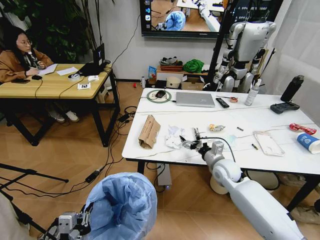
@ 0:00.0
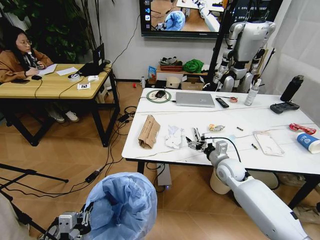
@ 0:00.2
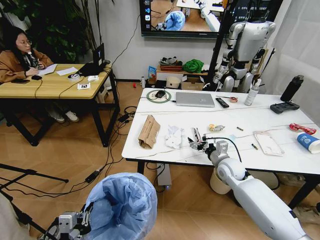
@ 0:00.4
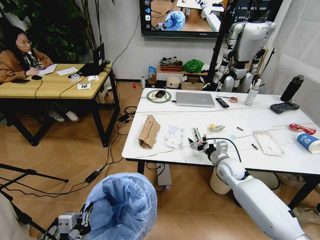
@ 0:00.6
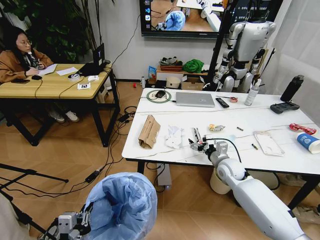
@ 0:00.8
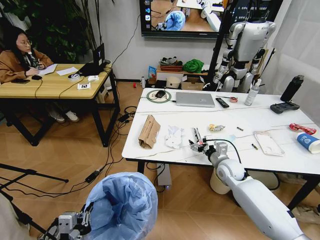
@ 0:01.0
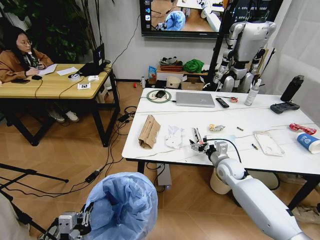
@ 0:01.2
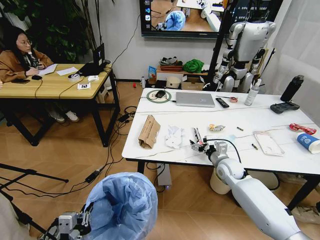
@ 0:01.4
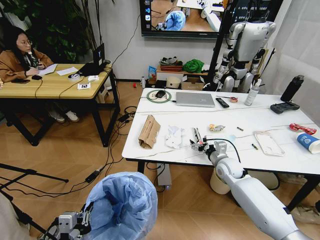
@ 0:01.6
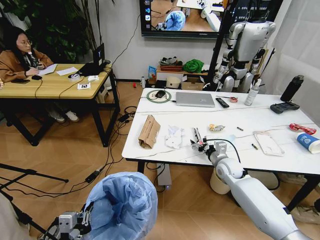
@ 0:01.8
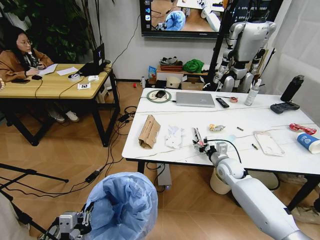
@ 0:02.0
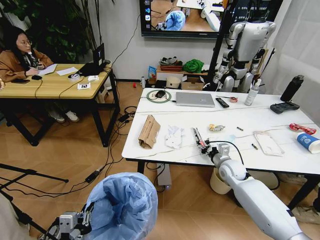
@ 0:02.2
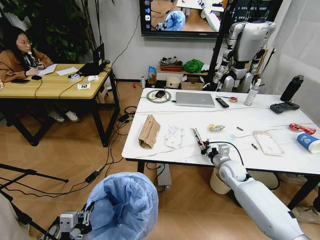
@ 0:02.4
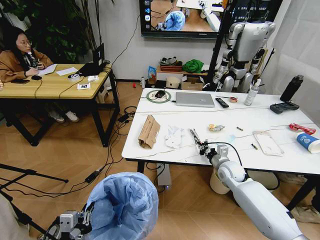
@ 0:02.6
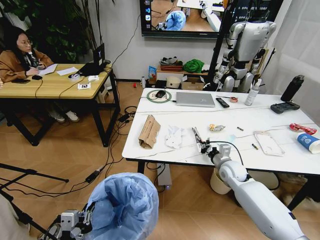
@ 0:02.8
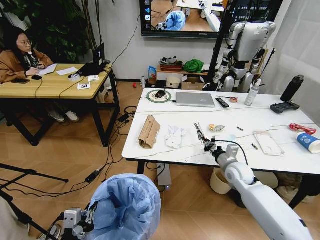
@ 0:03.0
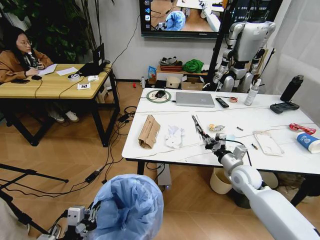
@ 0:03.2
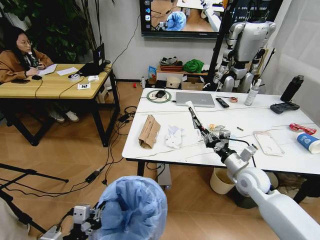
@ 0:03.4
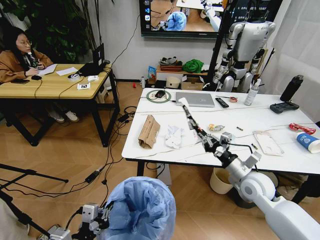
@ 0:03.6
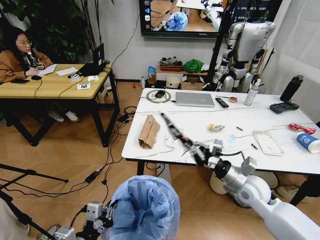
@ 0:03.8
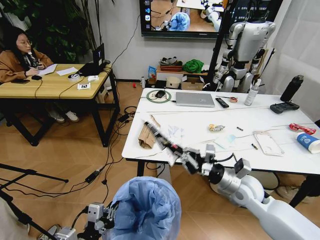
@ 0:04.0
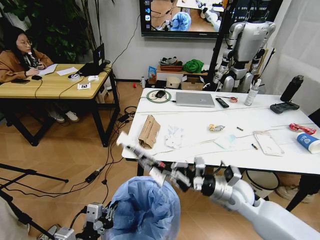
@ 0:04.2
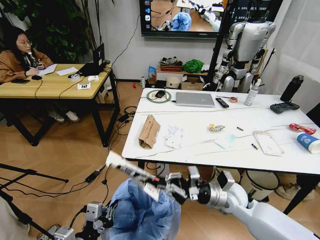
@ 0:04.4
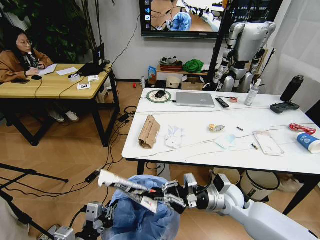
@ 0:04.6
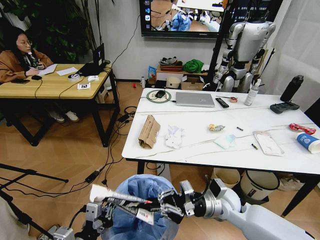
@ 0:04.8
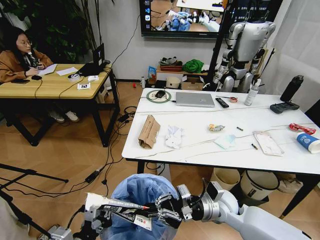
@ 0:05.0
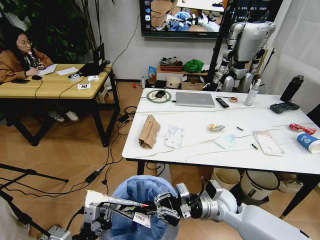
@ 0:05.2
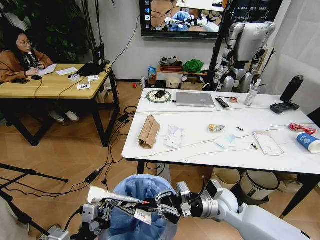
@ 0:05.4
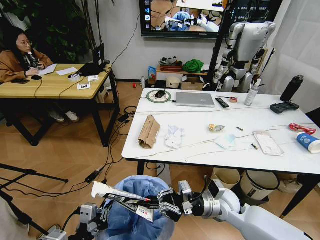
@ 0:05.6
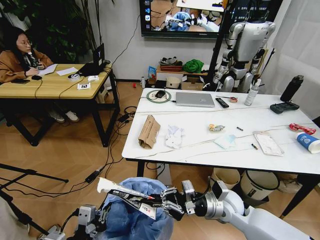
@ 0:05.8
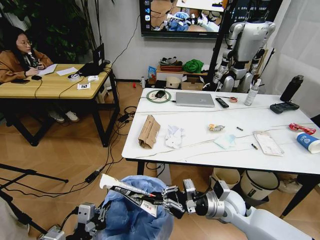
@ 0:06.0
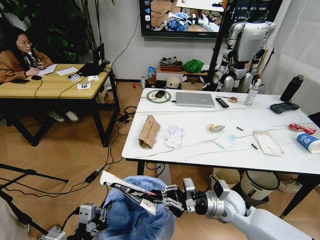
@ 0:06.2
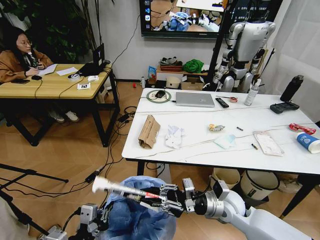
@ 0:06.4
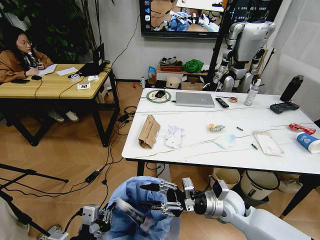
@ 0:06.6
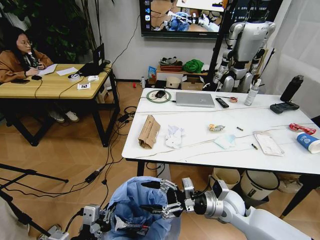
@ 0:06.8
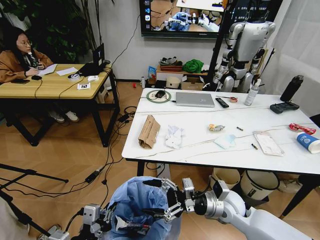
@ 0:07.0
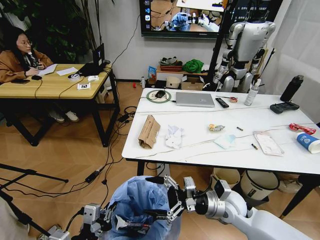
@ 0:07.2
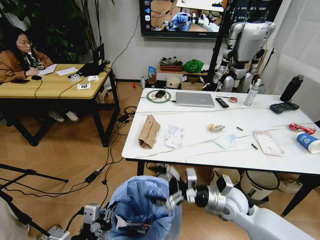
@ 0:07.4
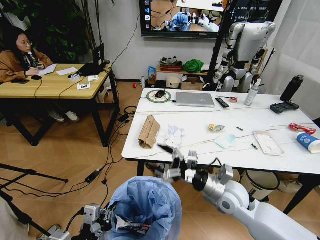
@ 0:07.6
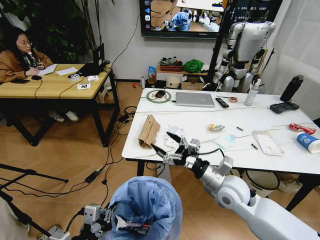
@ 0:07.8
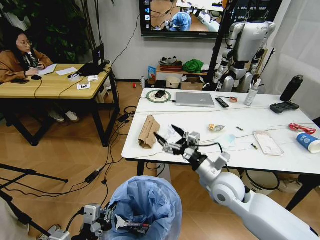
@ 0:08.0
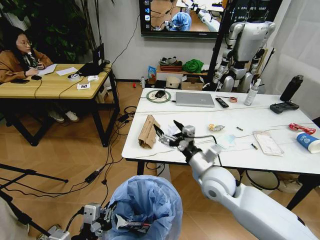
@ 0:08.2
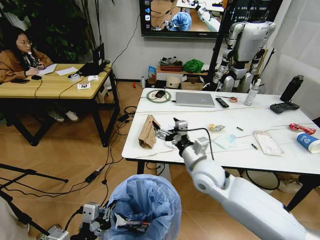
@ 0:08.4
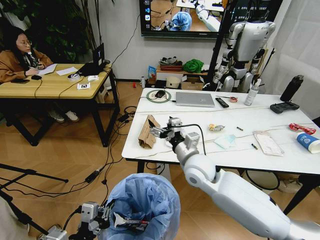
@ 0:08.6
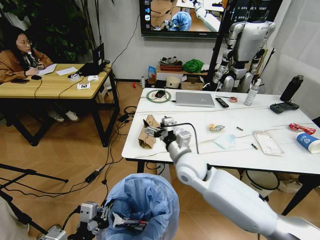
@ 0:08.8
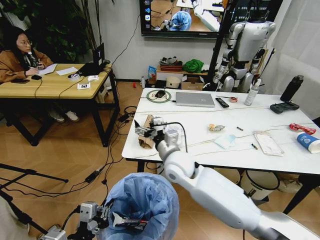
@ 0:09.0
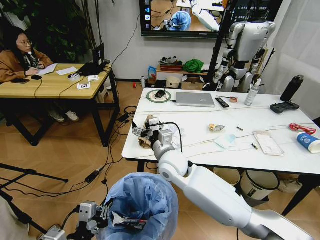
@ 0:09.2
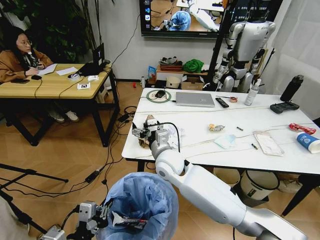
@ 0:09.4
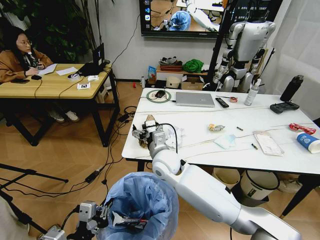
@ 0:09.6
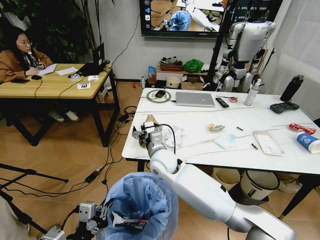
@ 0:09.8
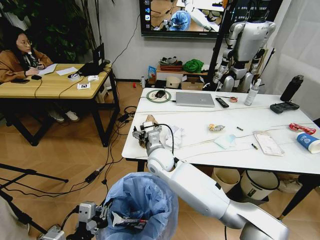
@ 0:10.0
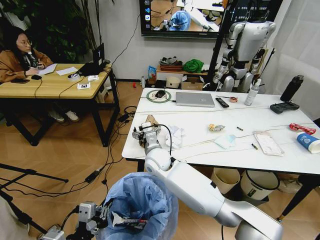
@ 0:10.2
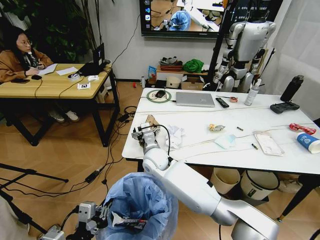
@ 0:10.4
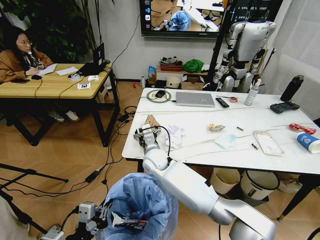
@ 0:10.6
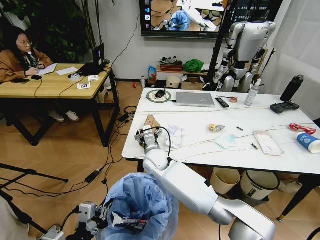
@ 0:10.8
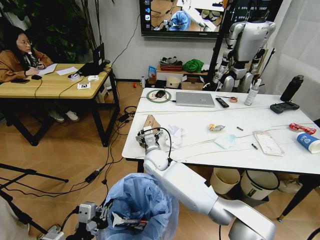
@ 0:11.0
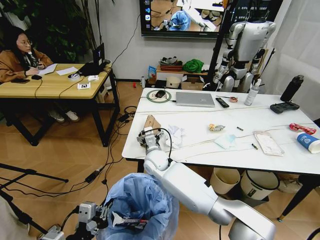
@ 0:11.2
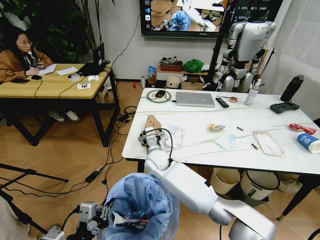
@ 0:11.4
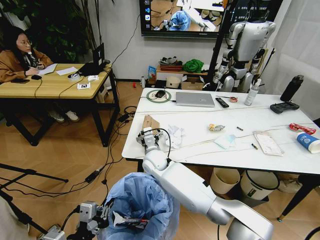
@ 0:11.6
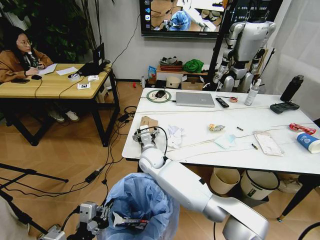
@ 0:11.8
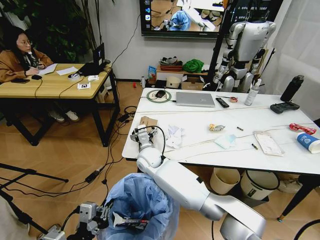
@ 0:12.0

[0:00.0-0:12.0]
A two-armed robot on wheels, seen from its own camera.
Task of the whole recording: Pick up the trash bin and place the trash from the table into it.
0:00.0 to 0:01.6: The right gripper changes place by approximately 5 cm.
0:01.6 to 0:03.0: The right gripper closes up.
0:03.0 to 0:04.4: The right gripper shifts approximately 15 cm backward and to the left.
0:04.4 to 0:06.0: The grippers move only a little.
0:06.0 to 0:07.6: The right gripper goes about 5 cm upward, and opens up.
0:07.6 to 0:09.0: The right gripper travels to the left and forward by some 20 cm.
0:09.0 to 0:10.4: The right gripper shifts some 10 cm to the left, downward and forward.
0:10.4 to 0:12.0: The grippers move only a little.

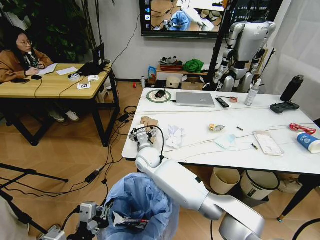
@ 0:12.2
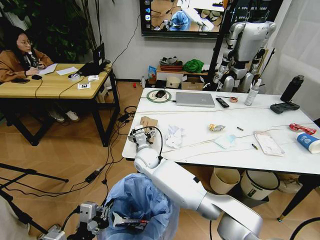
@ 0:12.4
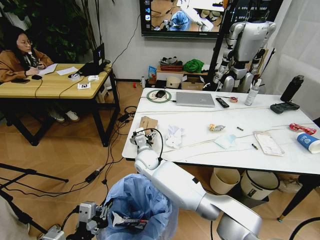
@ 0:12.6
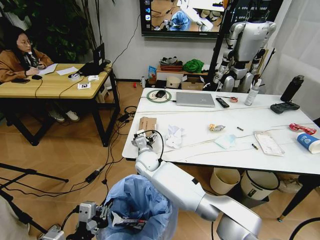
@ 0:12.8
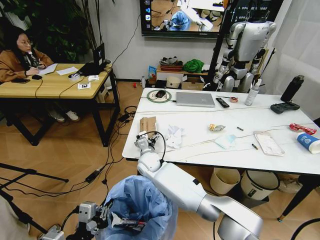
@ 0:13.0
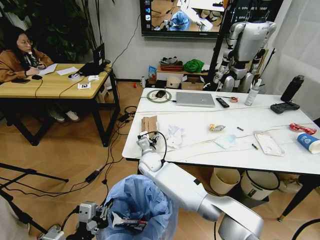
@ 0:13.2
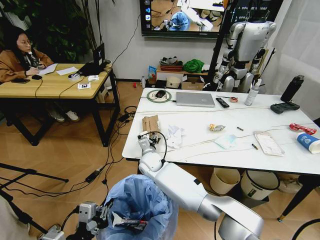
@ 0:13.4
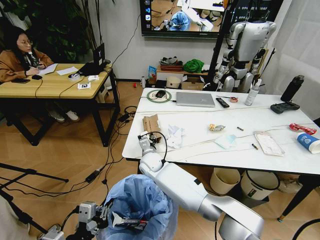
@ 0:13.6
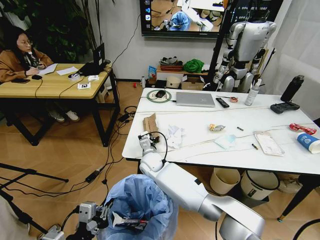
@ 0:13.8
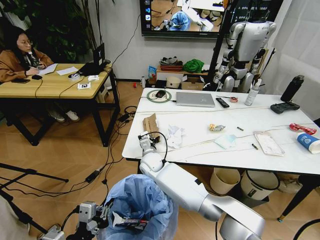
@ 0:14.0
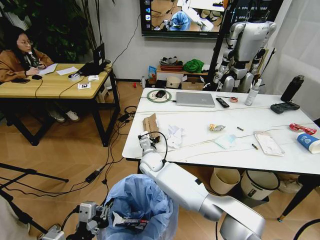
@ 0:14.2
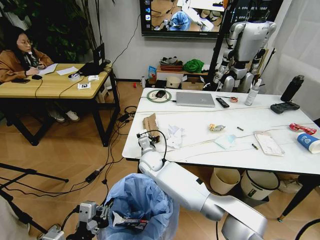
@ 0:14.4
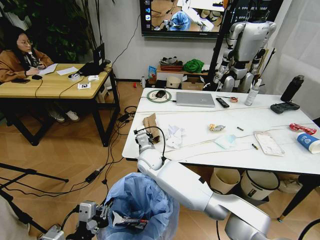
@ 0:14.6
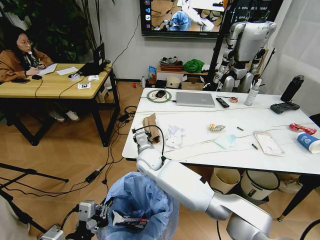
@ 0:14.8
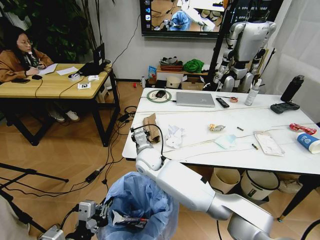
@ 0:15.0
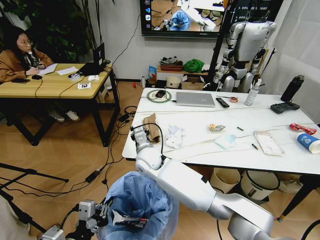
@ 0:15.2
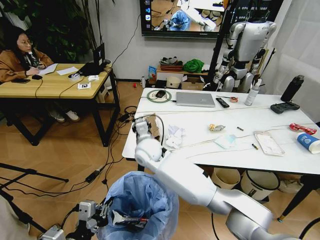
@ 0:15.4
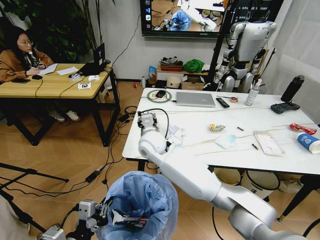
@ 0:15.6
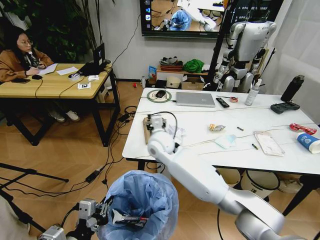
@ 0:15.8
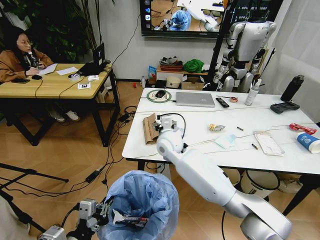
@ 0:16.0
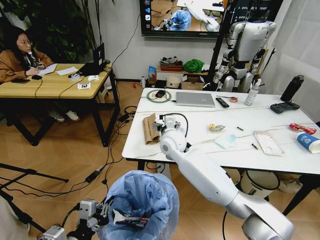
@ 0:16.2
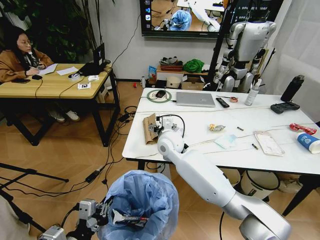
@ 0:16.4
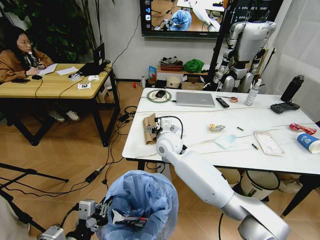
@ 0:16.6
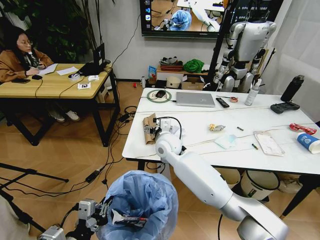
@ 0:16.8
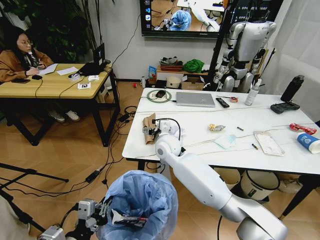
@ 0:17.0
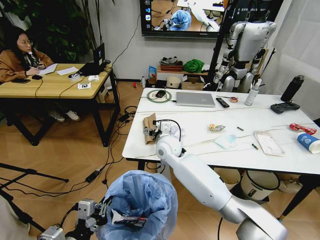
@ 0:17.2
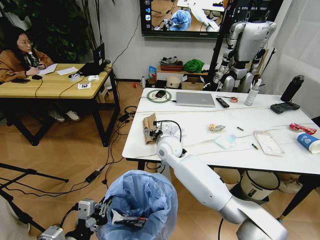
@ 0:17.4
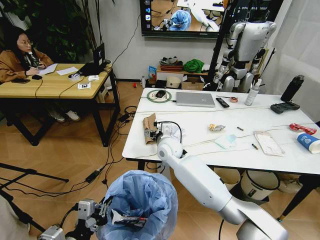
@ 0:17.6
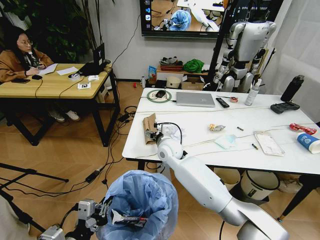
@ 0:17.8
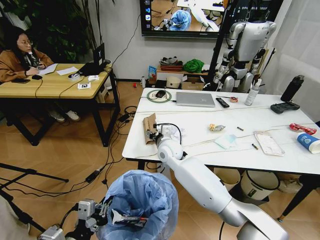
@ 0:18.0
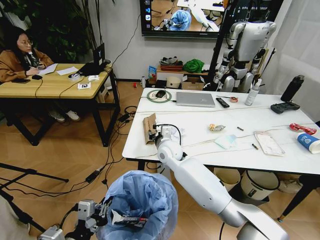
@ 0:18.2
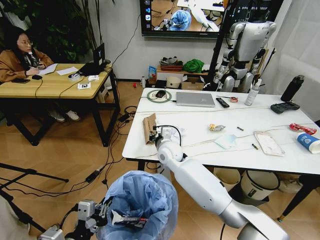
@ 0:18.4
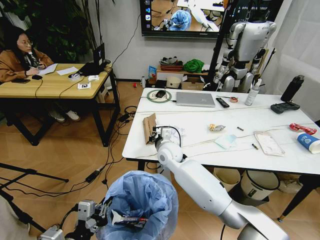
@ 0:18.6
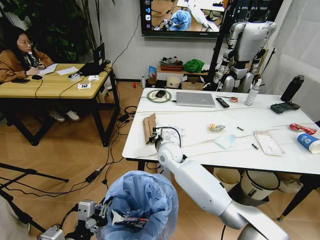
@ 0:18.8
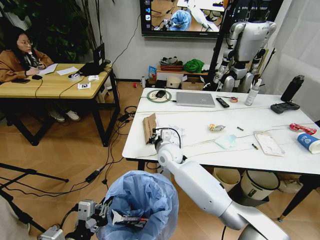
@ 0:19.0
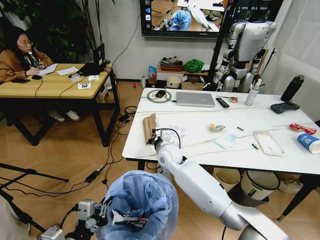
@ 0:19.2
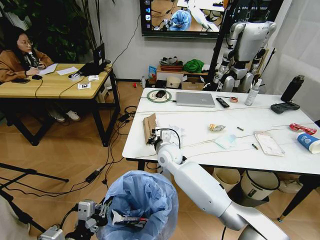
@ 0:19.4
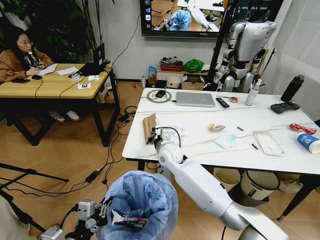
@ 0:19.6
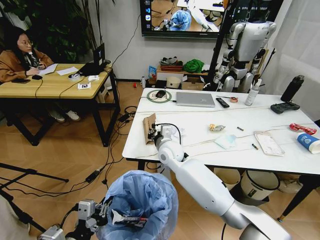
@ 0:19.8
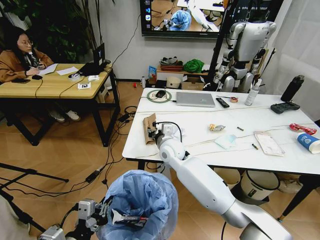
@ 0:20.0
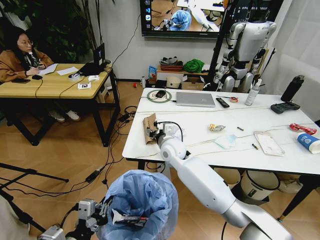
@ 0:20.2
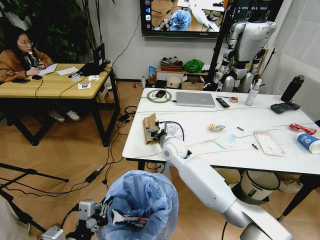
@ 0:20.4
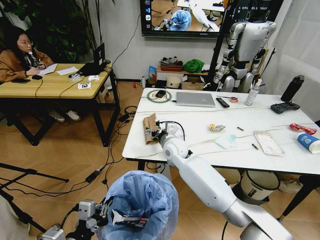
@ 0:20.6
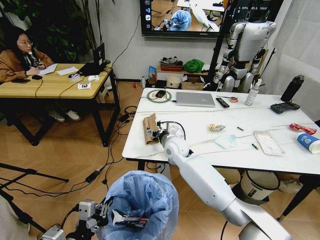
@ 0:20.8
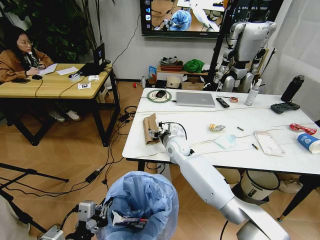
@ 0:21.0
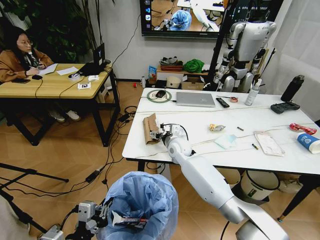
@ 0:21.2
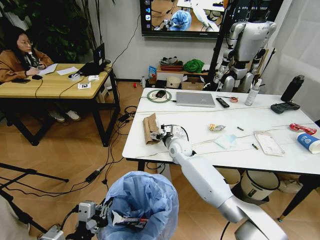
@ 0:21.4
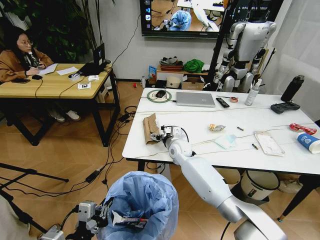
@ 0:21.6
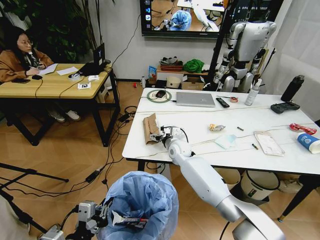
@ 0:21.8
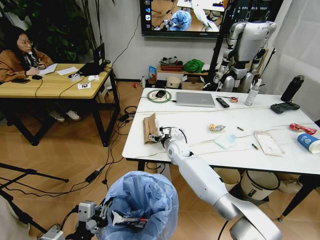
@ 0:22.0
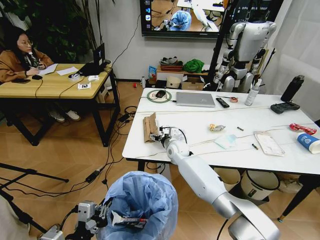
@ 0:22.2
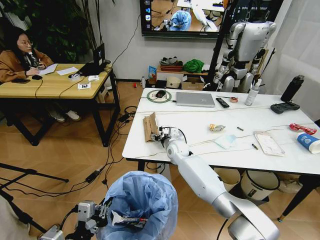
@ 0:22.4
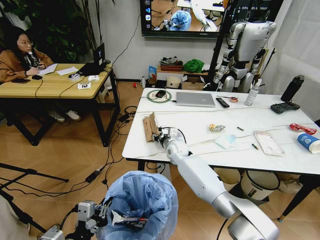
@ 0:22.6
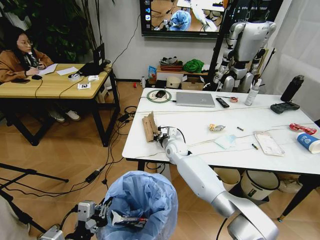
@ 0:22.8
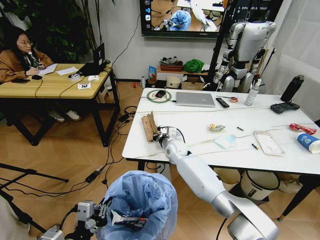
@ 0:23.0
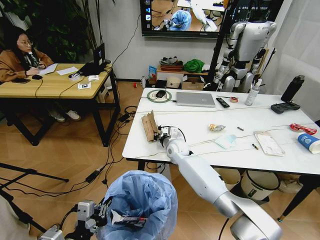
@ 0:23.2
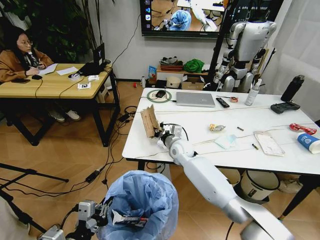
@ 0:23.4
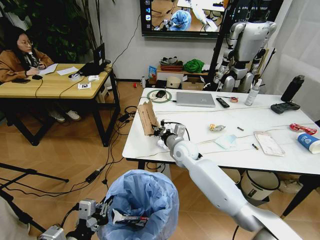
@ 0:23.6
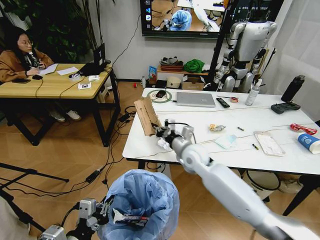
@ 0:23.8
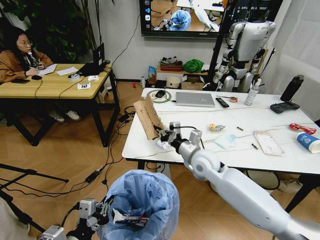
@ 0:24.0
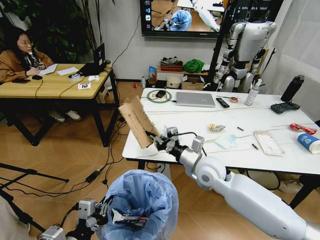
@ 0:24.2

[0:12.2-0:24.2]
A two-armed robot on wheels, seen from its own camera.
Task of the whole recording: Pick up the trash bin and place the trash from the table into it.
0:12.2 to 0:13.8: The right gripper closes up.
0:13.8 to 0:15.2: The right gripper shifts about 5 cm upward.
0:15.2 to 0:16.6: The right gripper is displaced to the right by approximately 10 cm, and opens up.
0:16.6 to 0:18.2: The right gripper closes.
0:18.2 to 0:19.8: The grippers make only small movements.
0:19.8 to 0:21.2: The right gripper ends up about 5 cm from where it was, and opens up.
0:21.2 to 0:22.6: The right gripper closes up.
0:22.6 to 0:24.2: The right gripper travels backward, upward and to the right by some 20 cm, and closes up.
